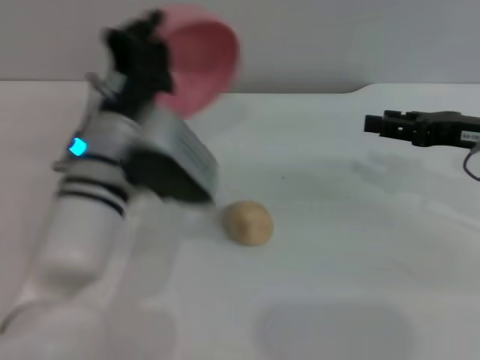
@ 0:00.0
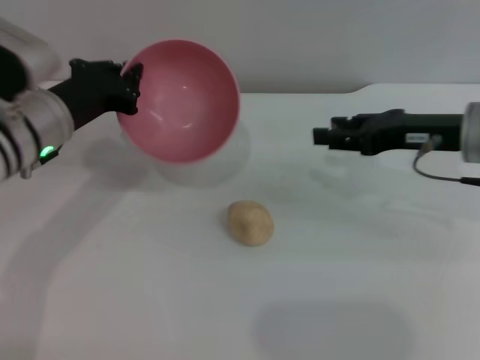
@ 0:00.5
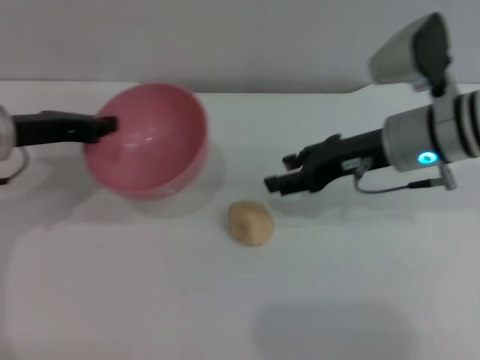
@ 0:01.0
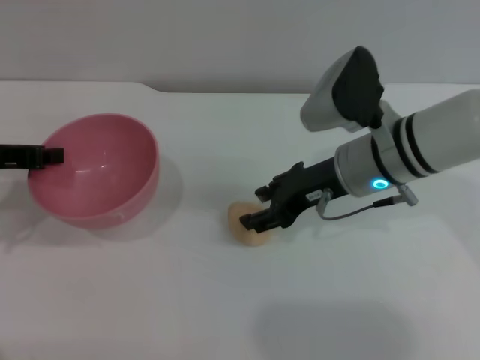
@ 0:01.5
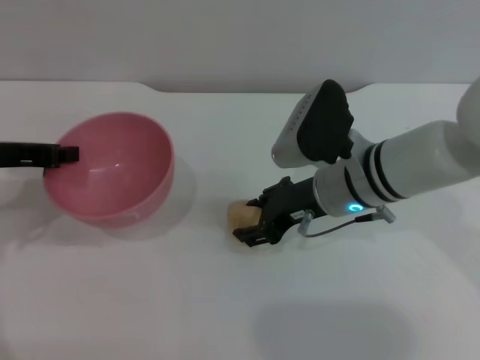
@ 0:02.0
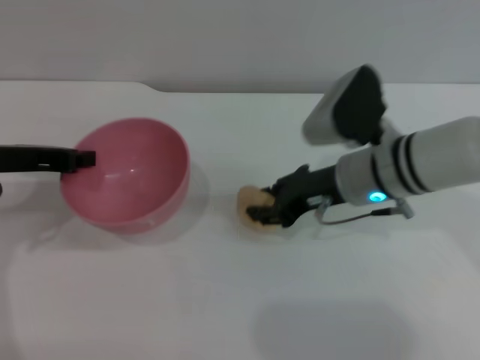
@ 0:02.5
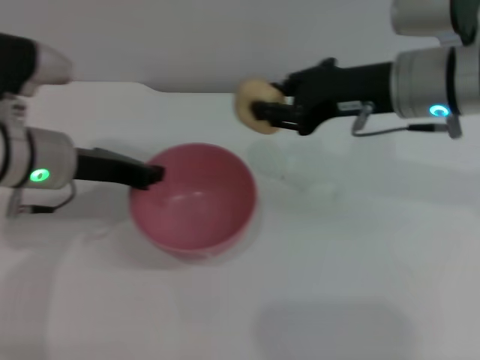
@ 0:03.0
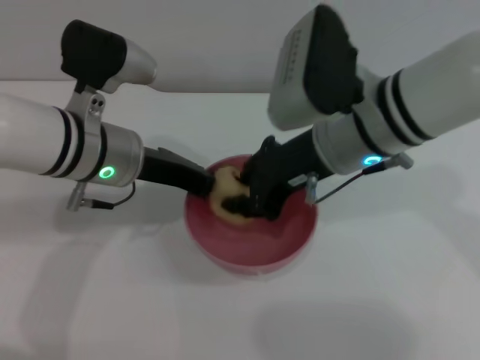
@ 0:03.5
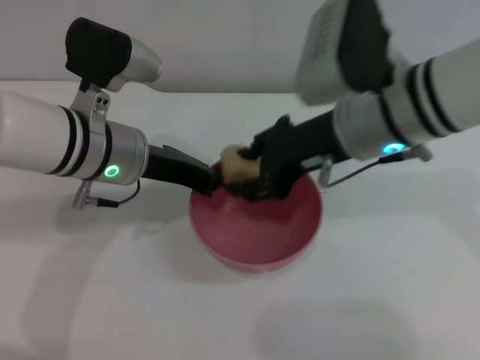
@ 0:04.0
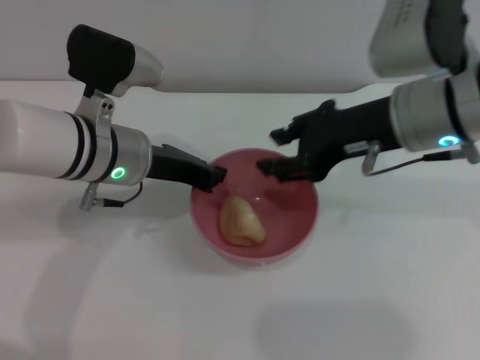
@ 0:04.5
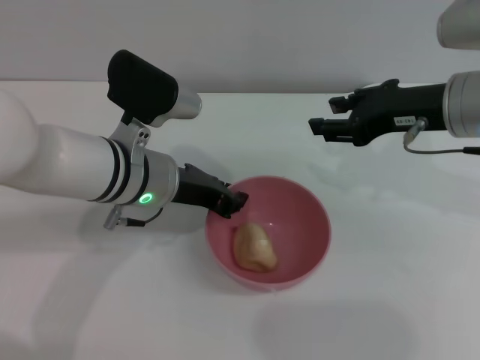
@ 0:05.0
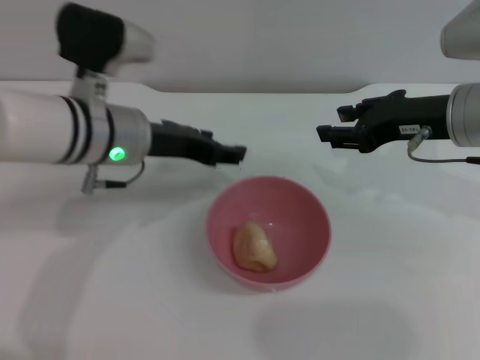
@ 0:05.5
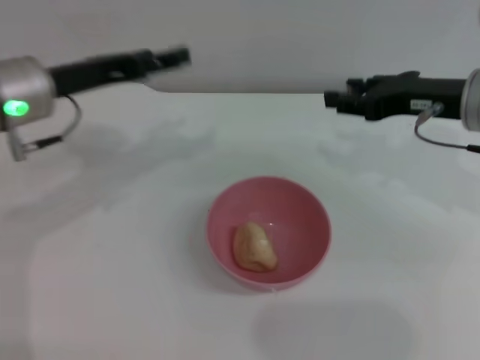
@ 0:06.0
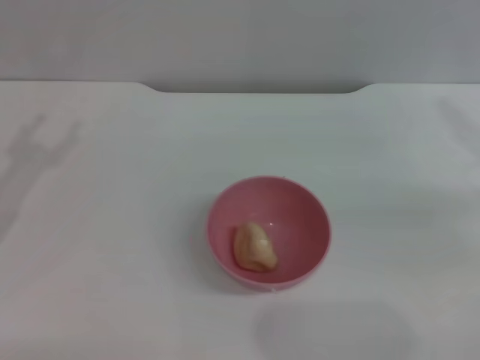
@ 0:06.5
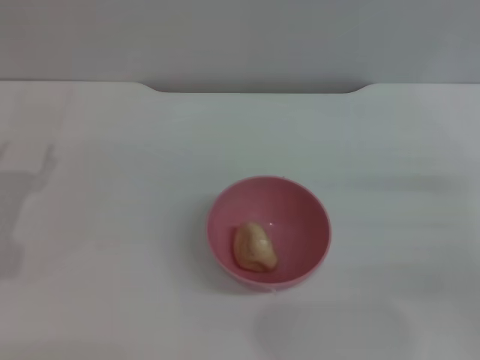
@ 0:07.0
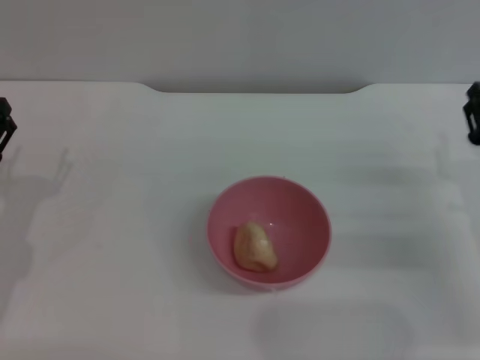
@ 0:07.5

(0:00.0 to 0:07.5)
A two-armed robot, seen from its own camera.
Task of the whole recording: put the egg yolk pastry into the pink bowl and pour it out repeatedly.
Step, 0:00.5 - 0:02.5: Pick up the egg yolk pastry with the right gripper.
Step, 0:03.0 - 0:04.0: Place the egg yolk pastry into the bowl.
Step, 0:04.5 - 0:05.5: Place the bowl on the table.
0:00.0 - 0:02.0: The grippers both shift to the left by some 20 cm.
0:02.0 - 0:04.0: The left gripper shifts about 15 cm to the right; the right gripper moves upward, about 10 cm, and closes, then opens again.
0:04.0 - 0:05.5: The right gripper shifts approximately 10 cm to the right. Meanwhile the left gripper opens its fingers.
0:05.5 - 0:07.5: The right gripper heads downward, backward and to the right, covering roughly 15 cm. The left gripper goes about 20 cm to the left, downward and backward.

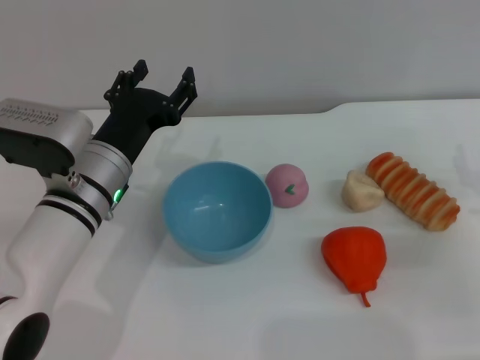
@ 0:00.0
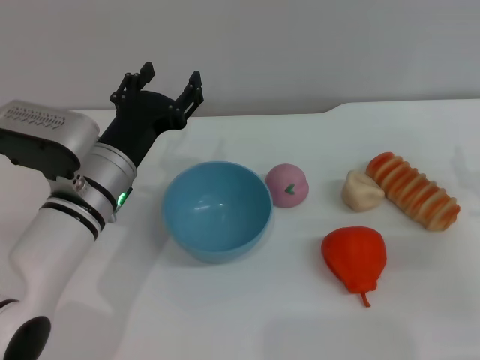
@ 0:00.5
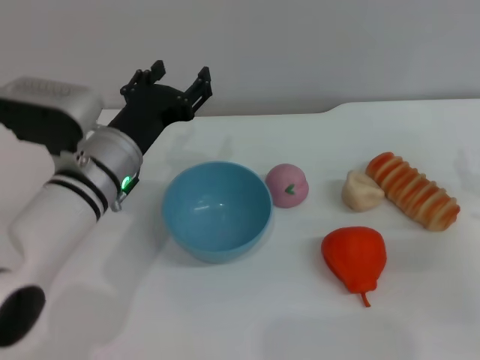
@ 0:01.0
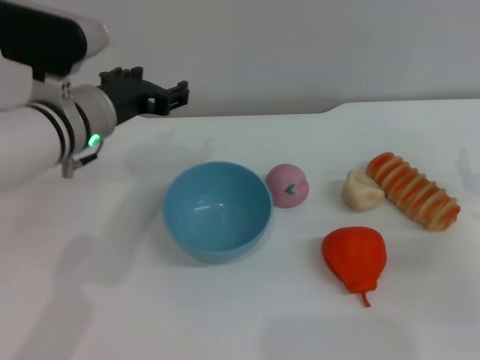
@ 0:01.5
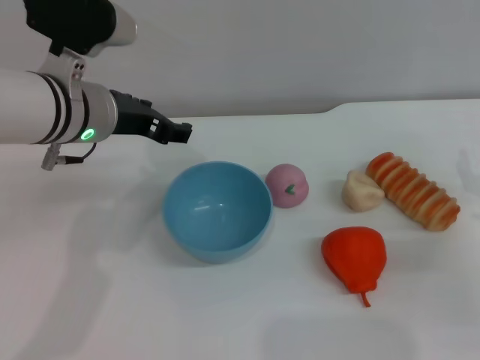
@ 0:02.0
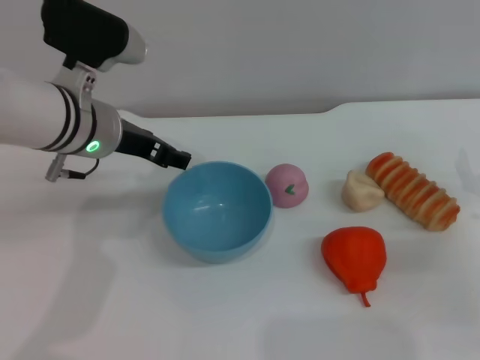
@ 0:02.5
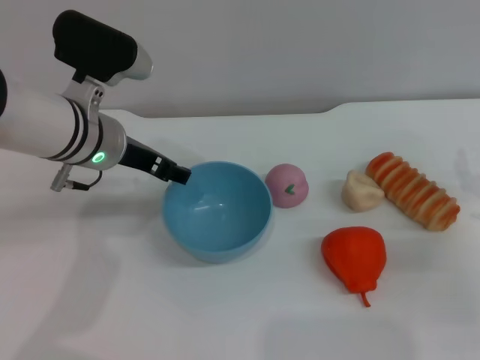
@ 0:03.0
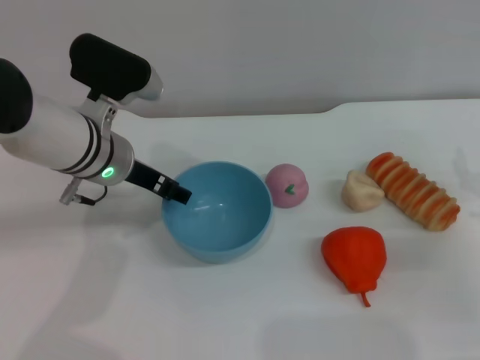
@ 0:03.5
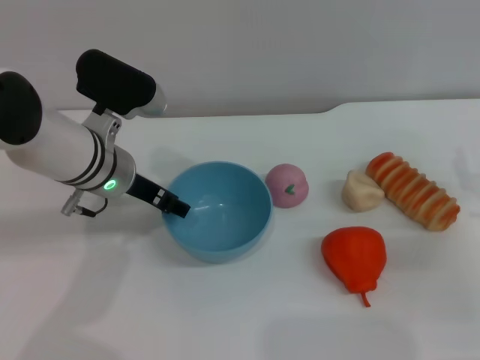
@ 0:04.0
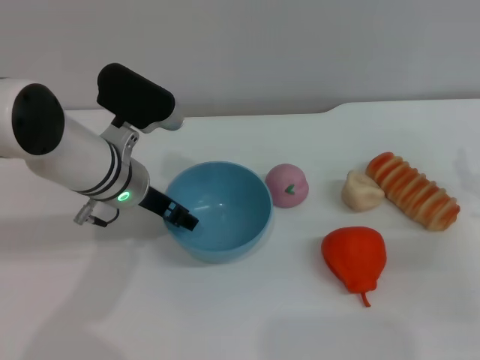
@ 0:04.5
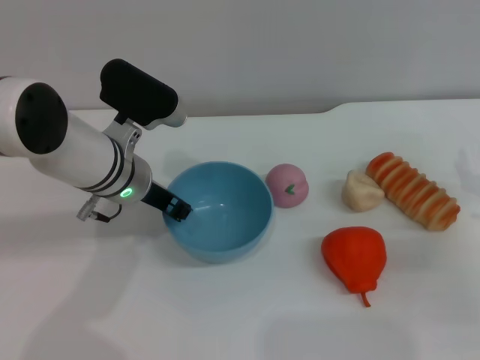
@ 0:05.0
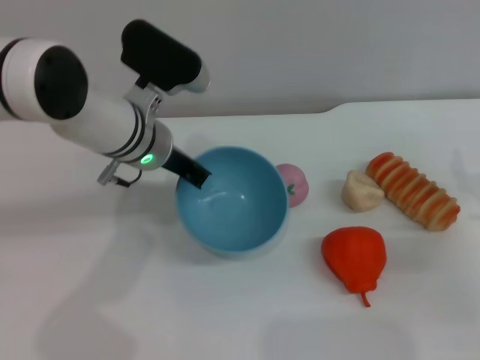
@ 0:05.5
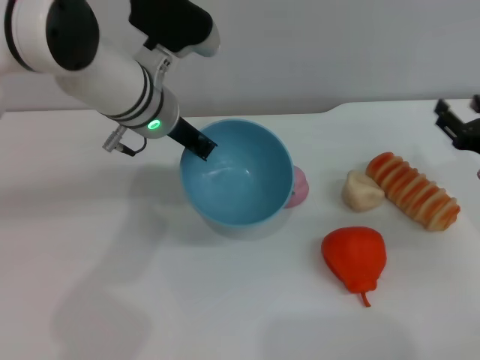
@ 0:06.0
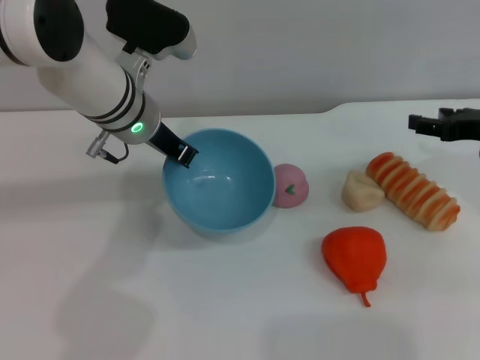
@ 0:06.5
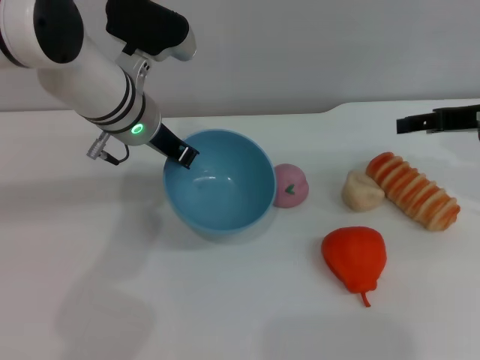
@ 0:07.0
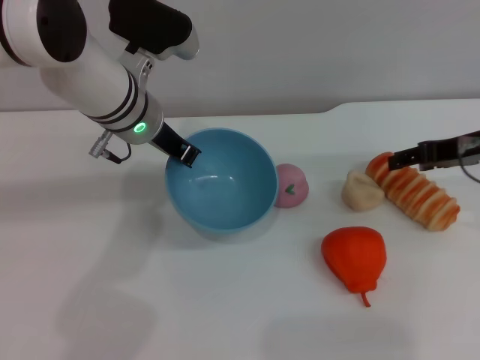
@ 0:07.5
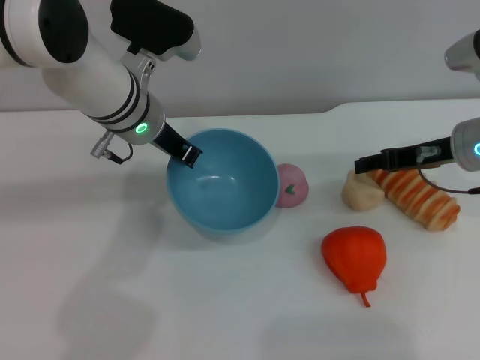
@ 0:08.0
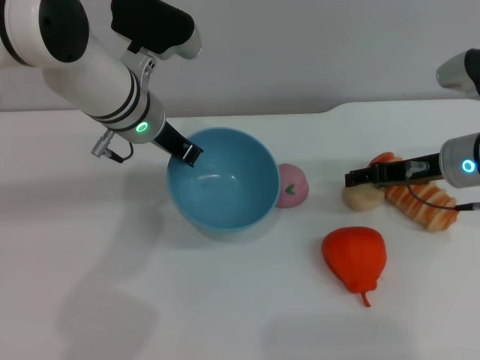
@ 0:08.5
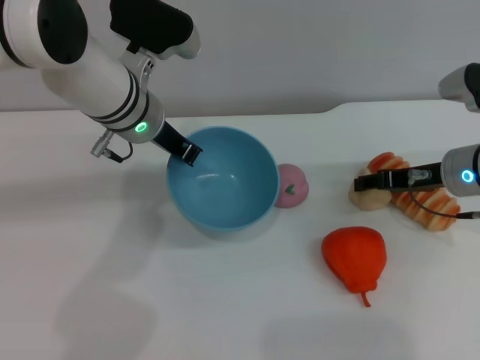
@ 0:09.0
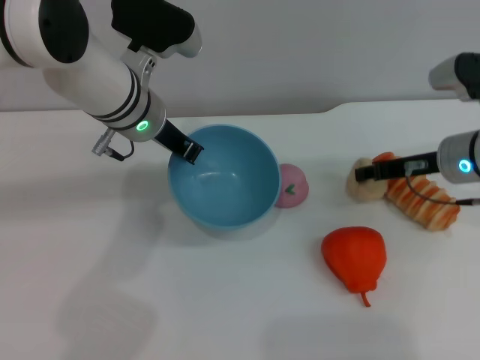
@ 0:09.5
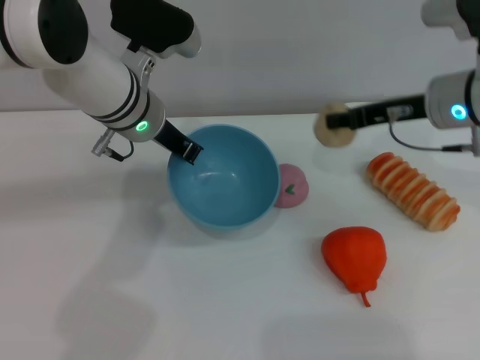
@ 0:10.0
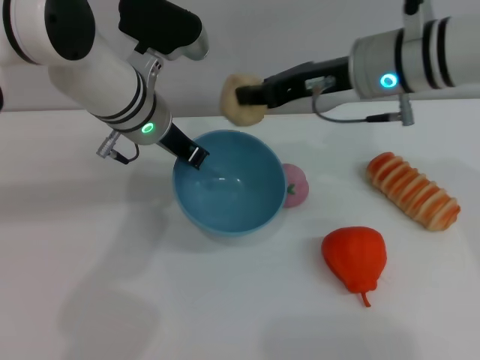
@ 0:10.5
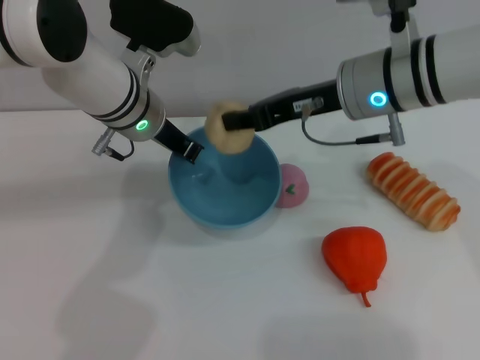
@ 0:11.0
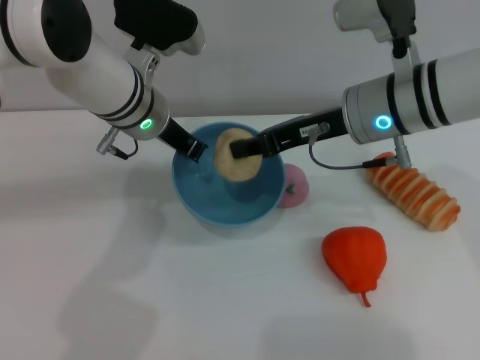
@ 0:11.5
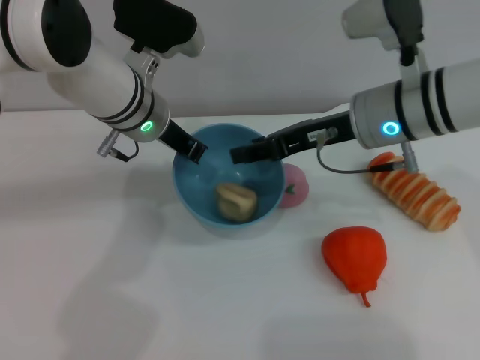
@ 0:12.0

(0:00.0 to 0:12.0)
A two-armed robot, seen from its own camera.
Task of the whole recording: put the egg yolk pastry into the blue bowl and pour it out repeatedly.
Step, 0:00.0 - 0:05.5: Pick up the bowl with the left gripper.
Step, 0:06.0 - 0:09.5: Pick up the egg yolk pastry with the right gripper.
Step, 0:10.0 - 0:12.0: Place the egg yolk pastry into the bowl.
0:00.0 - 0:02.0: The left gripper travels upward by about 10 cm.
0:02.0 - 0:04.0: The left gripper goes about 5 cm downward.
0:04.0 - 0:06.0: The left gripper ends up some 10 cm from where it was, and closes its fingers.
0:06.0 - 0:08.0: The right gripper moves forward, upward and to the left, approximately 10 cm.
0:08.0 - 0:10.0: The right gripper ends up approximately 5 cm from where it was, and closes its fingers.
0:10.0 - 0:12.0: The right gripper heads to the left, covering about 5 cm.

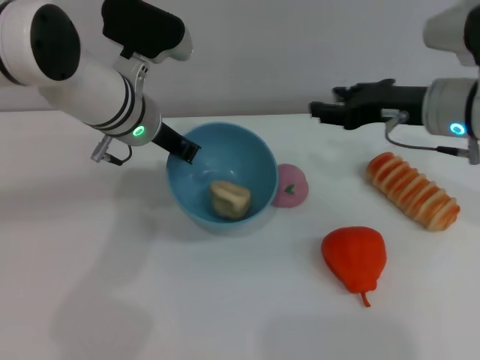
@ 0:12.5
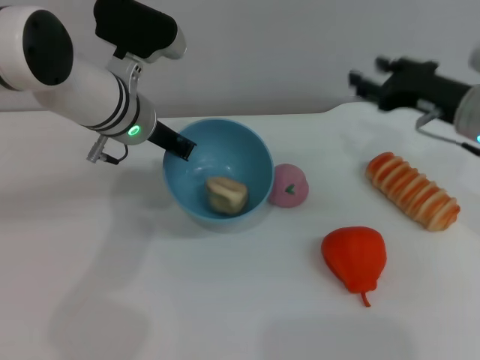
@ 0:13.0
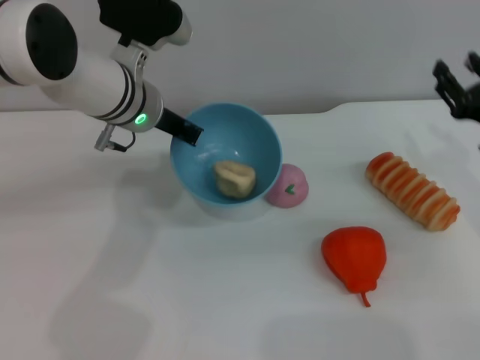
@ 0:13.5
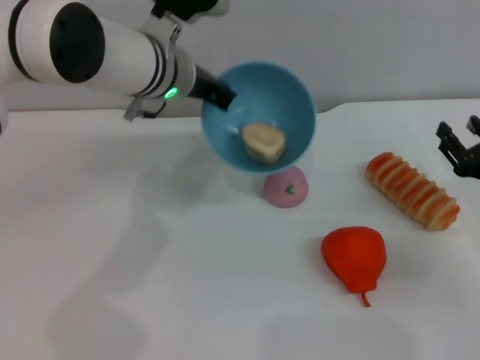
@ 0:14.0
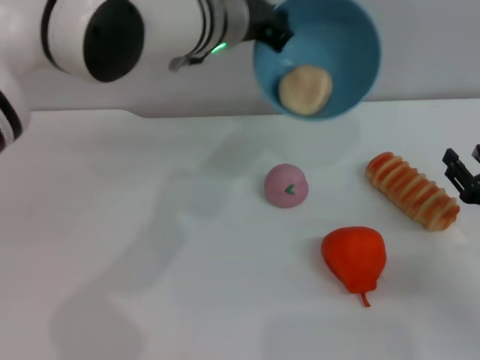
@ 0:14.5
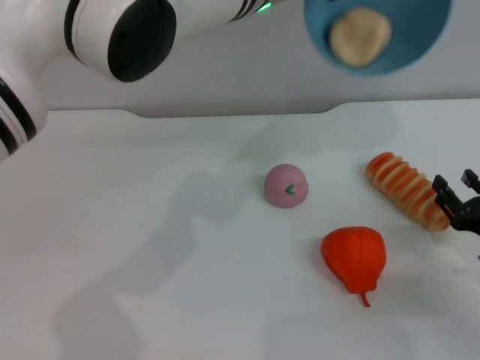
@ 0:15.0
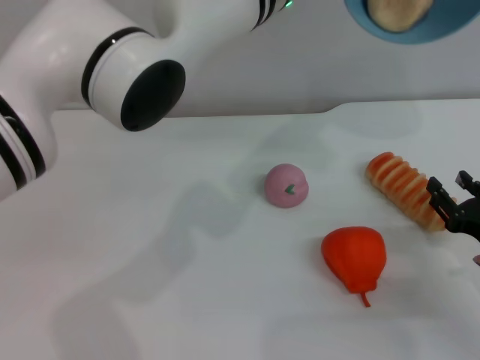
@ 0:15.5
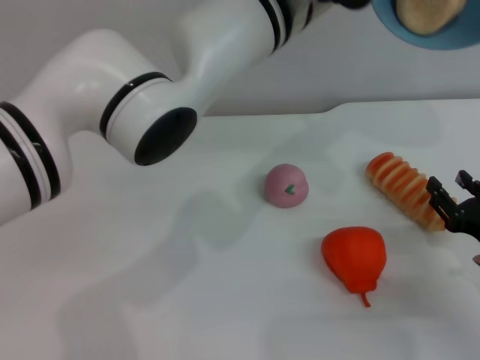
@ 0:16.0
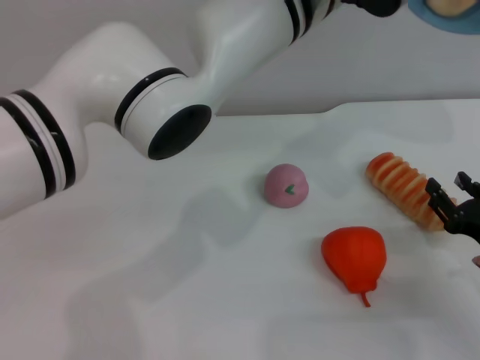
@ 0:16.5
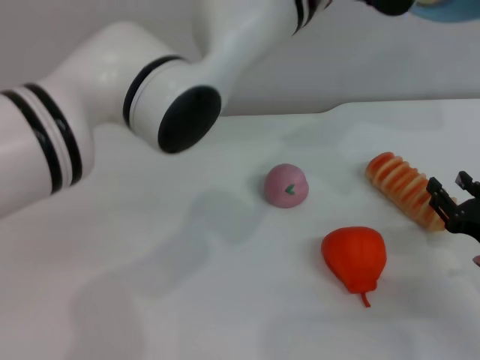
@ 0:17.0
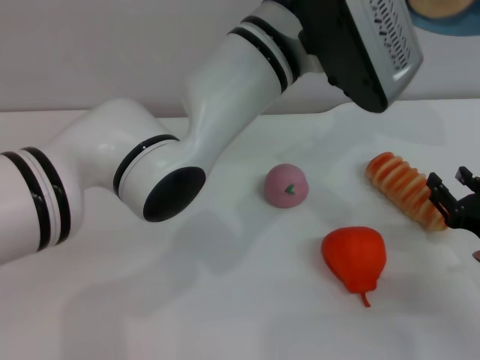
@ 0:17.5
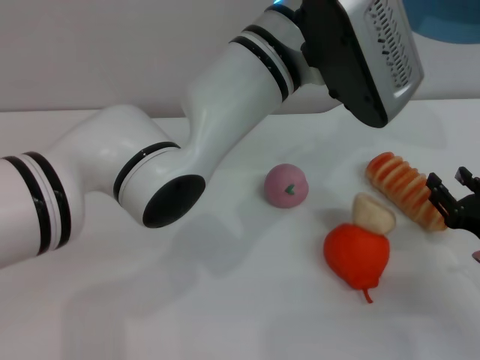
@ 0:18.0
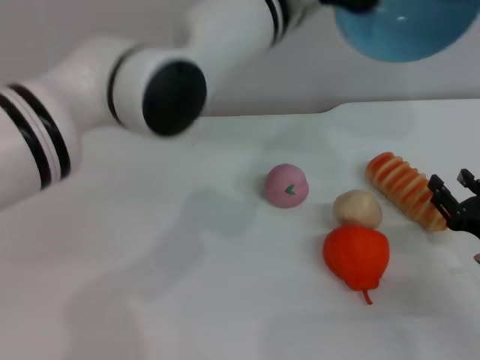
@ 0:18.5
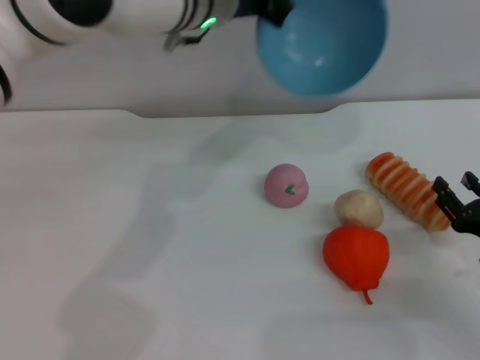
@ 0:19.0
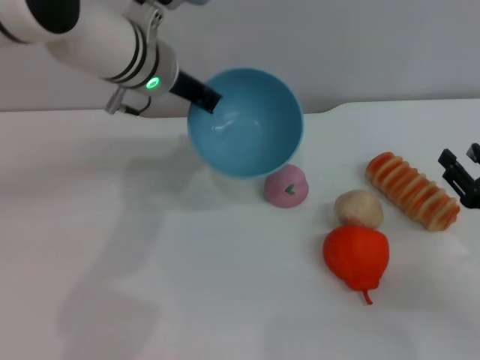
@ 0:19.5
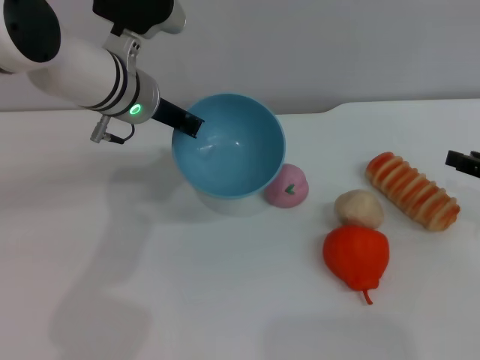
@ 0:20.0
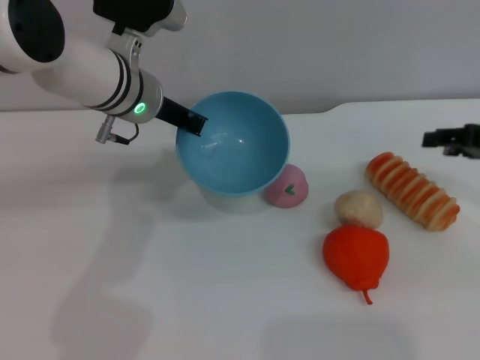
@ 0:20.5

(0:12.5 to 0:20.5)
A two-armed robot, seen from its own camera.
Task of the whole recording: put the egg yolk pastry into the blue bowl and pour it out repeatedly.
Step, 0:12.5 - 0:18.0: Pour the egg yolk pastry out of bowl.
0:12.5 - 0:14.5: The right gripper shifts roughly 20 cm downward, backward and to the right, while the left gripper goes about 10 cm to the right and upward.
0:14.5 - 0:16.5: The left gripper goes approximately 5 cm to the right.
0:16.5 - 0:18.5: The grippers make only small movements.
0:18.5 - 0:20.5: The right gripper travels upward and forward by approximately 15 cm; the left gripper moves to the left and downward, roughly 15 cm.
